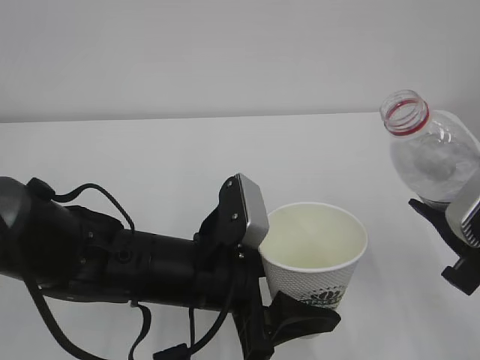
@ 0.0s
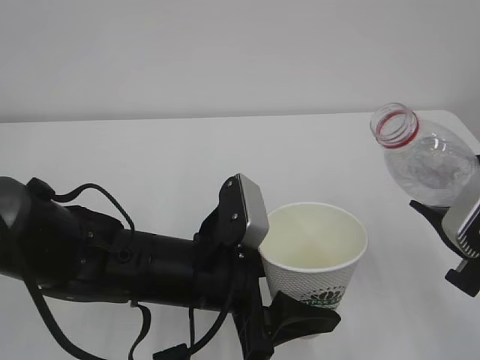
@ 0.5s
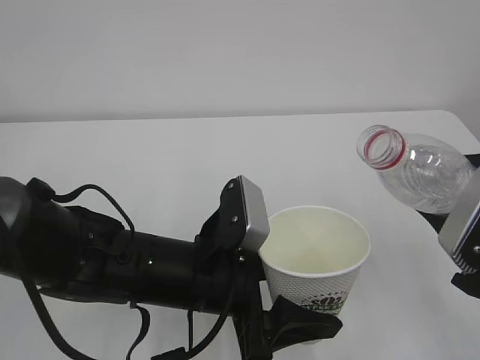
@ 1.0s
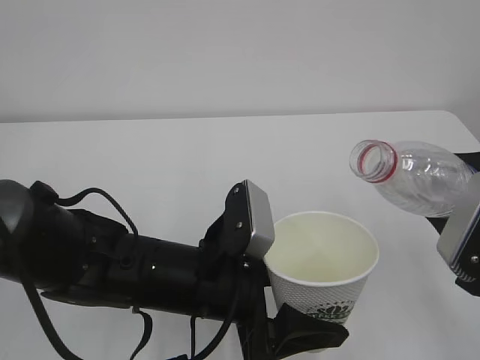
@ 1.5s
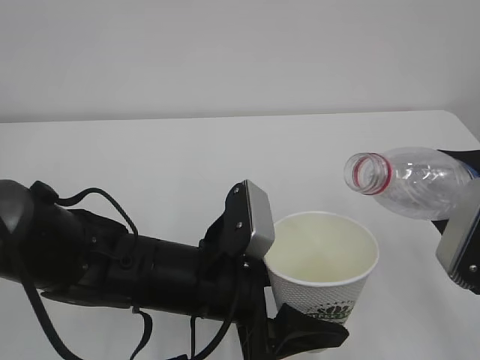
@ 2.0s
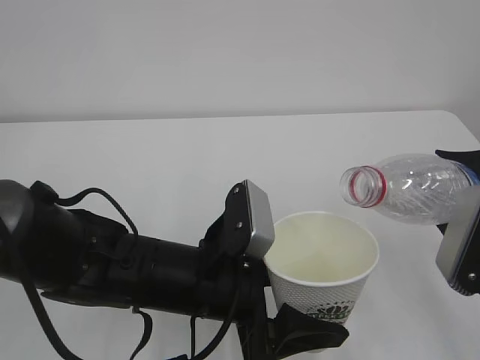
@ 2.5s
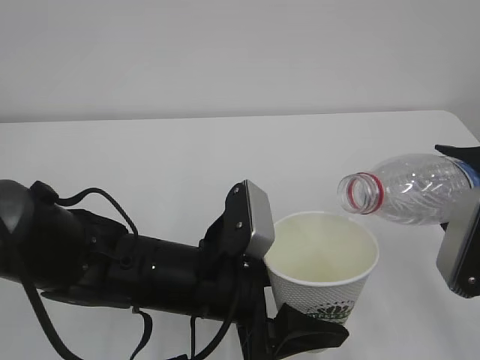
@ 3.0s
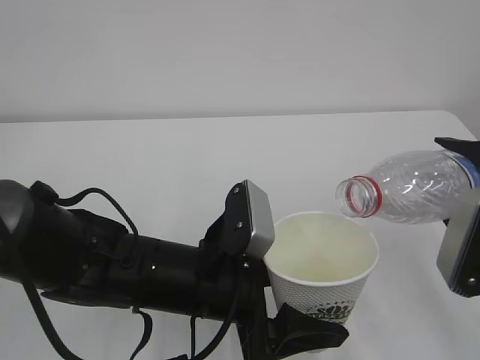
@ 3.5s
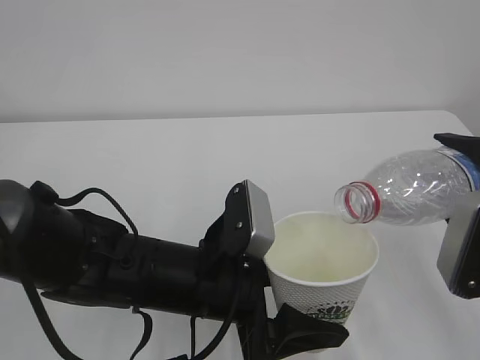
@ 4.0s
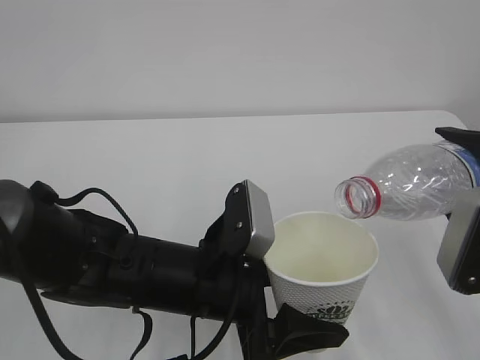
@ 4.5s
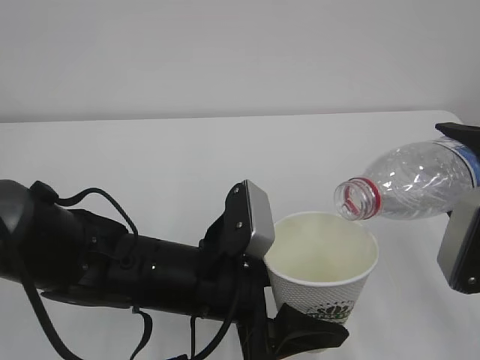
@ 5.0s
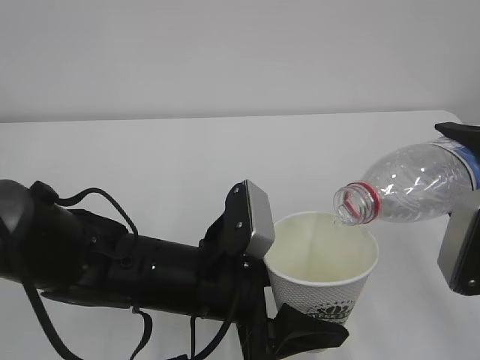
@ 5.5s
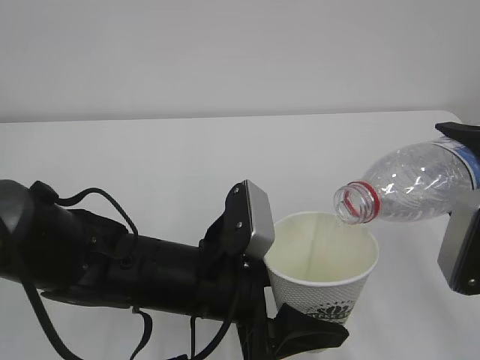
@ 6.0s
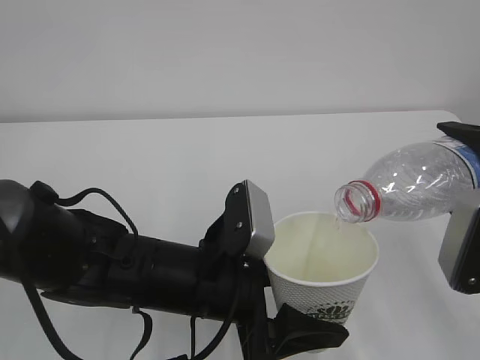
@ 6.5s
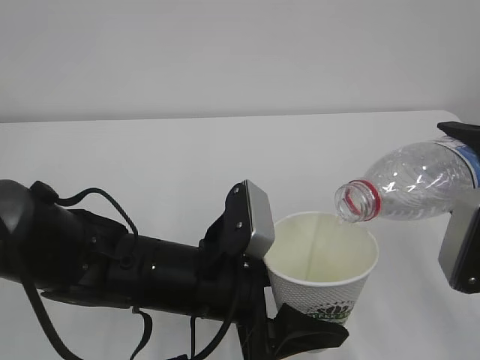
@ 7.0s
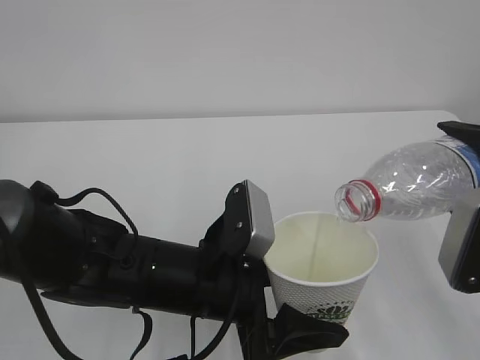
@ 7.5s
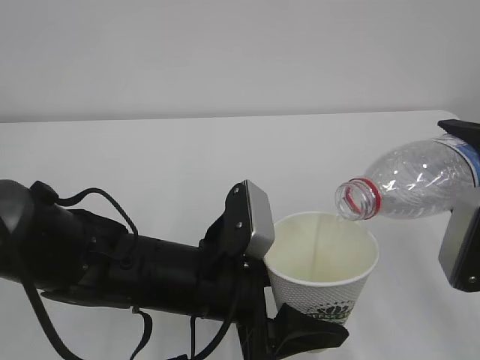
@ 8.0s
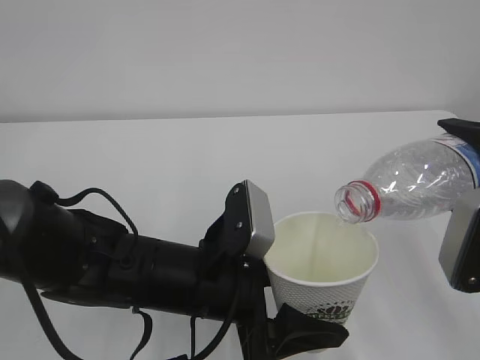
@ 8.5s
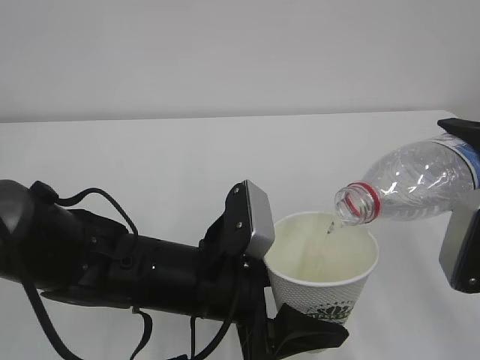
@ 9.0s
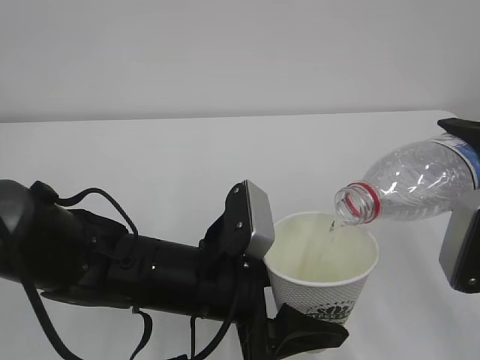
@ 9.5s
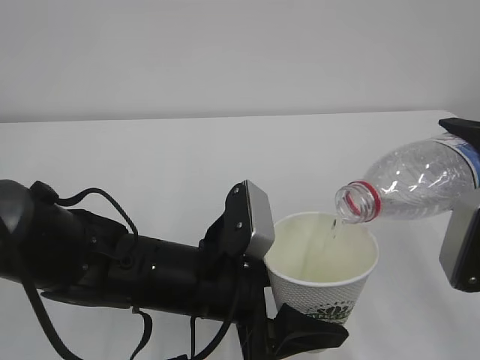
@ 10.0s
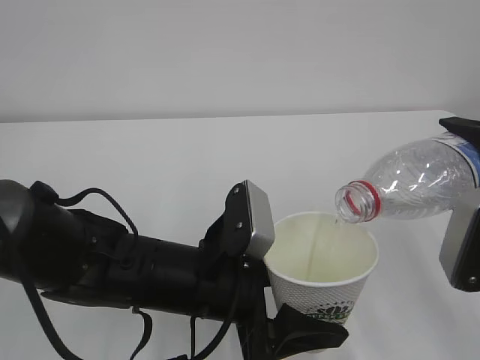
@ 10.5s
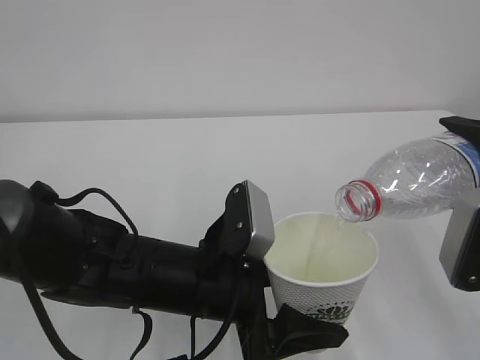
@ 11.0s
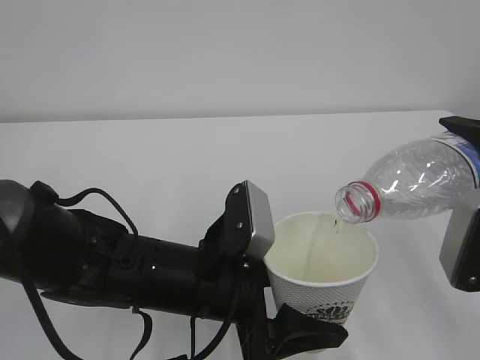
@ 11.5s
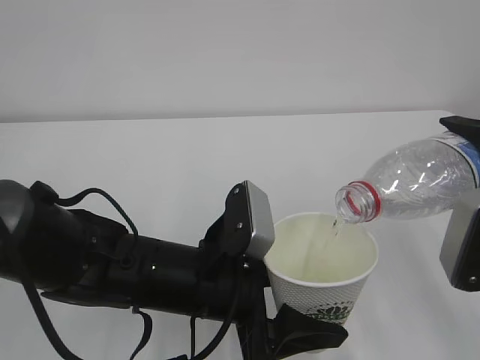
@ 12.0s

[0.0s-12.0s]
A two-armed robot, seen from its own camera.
2.0s to 4.0s: There are only small adjustments of the grippers.
4.0s to 6.0s: Both grippers stay put.
6.0s to 12.0s: Neither gripper changes place.

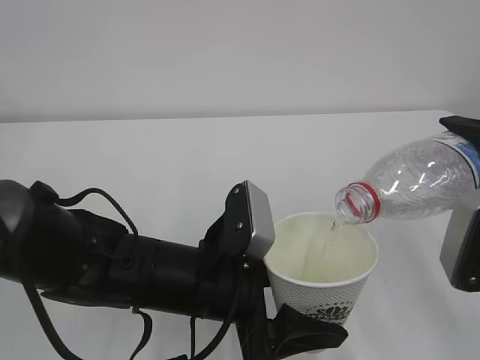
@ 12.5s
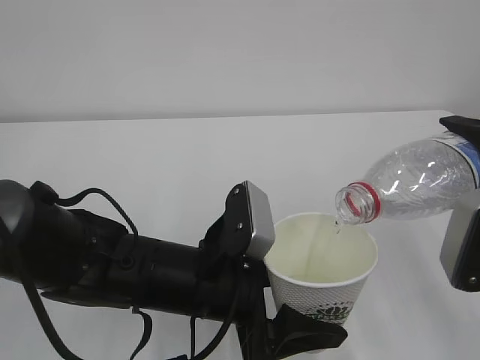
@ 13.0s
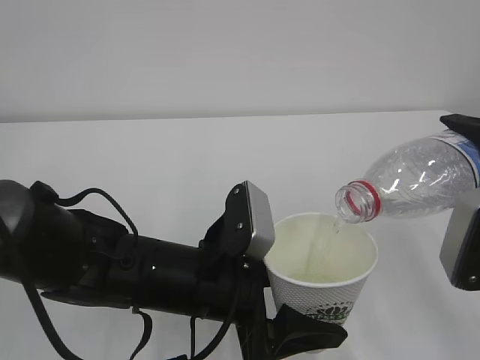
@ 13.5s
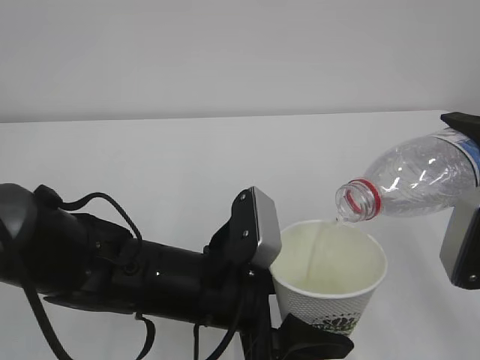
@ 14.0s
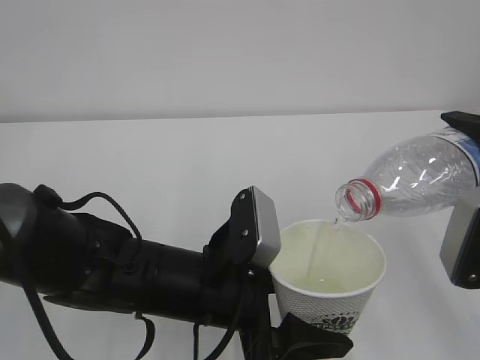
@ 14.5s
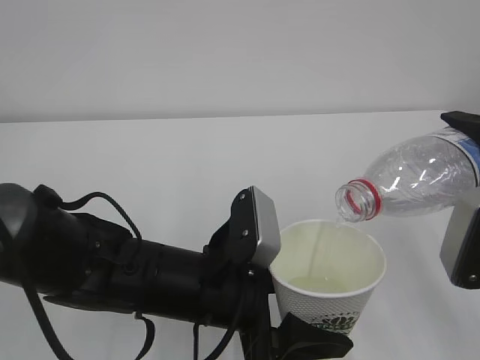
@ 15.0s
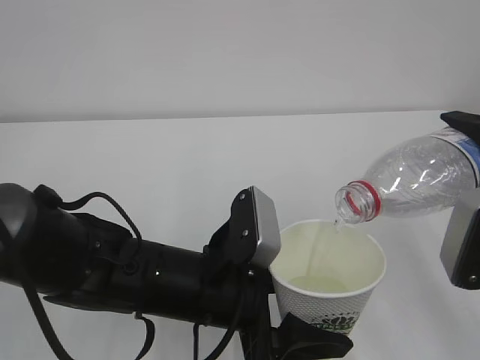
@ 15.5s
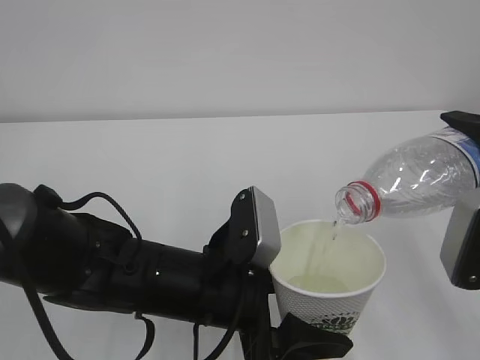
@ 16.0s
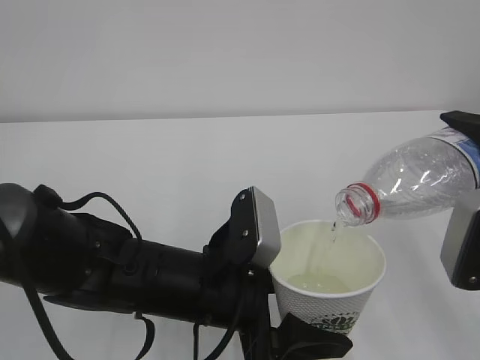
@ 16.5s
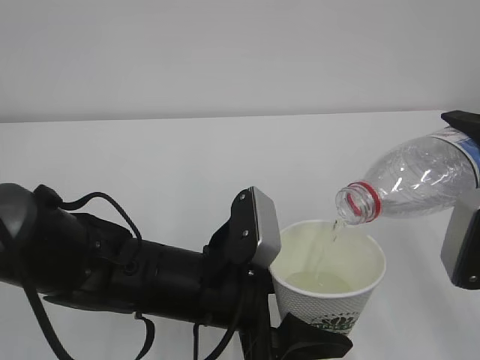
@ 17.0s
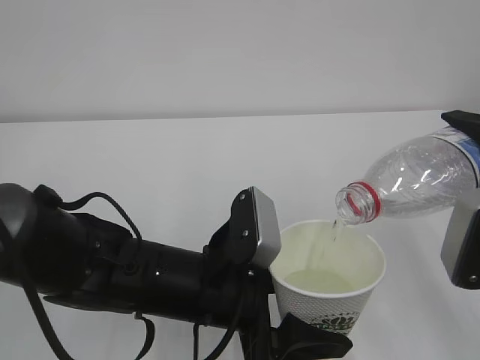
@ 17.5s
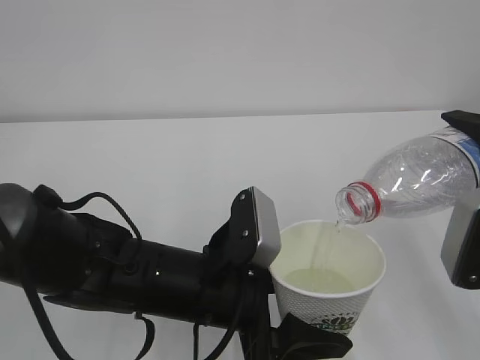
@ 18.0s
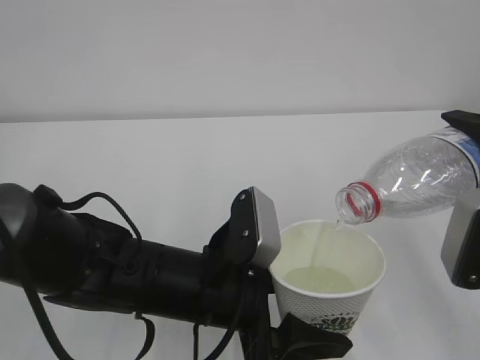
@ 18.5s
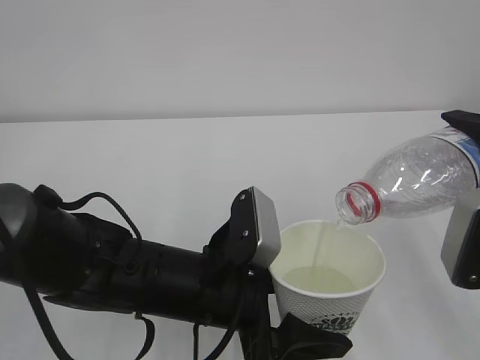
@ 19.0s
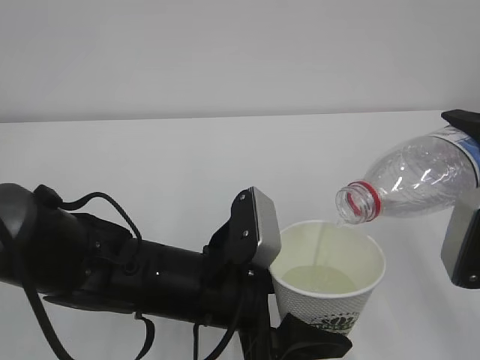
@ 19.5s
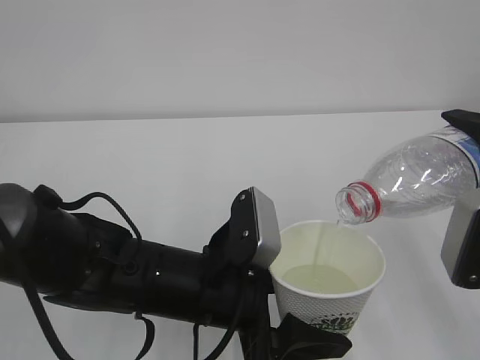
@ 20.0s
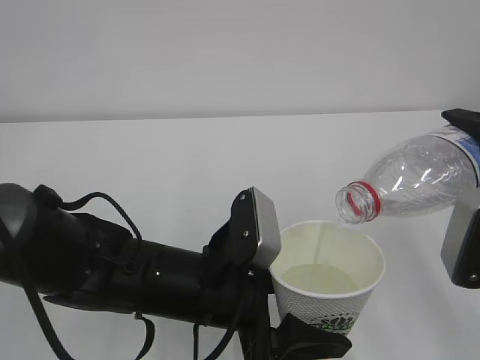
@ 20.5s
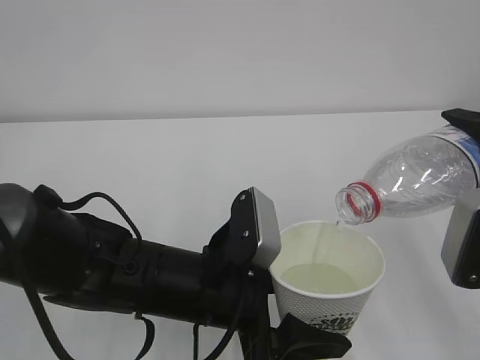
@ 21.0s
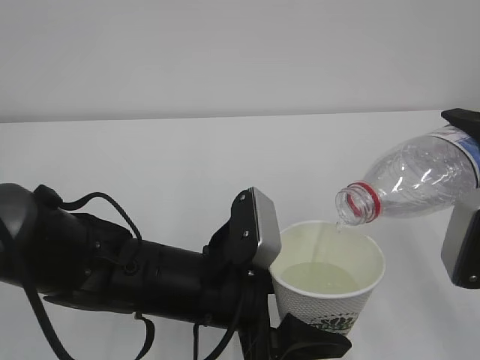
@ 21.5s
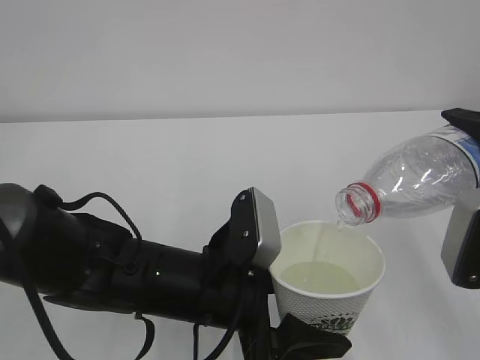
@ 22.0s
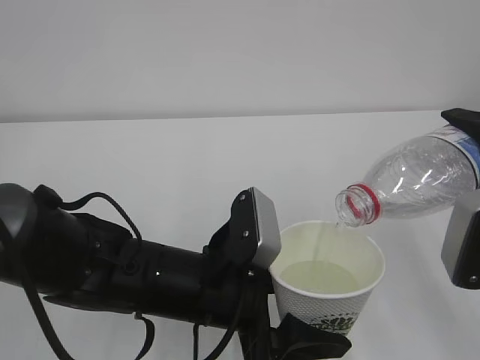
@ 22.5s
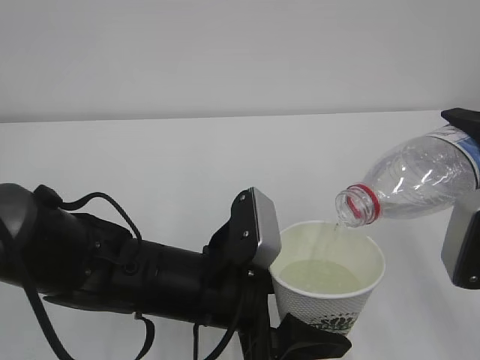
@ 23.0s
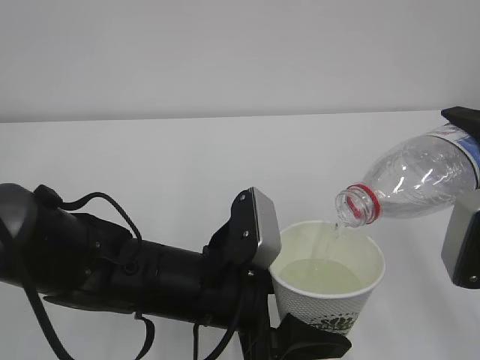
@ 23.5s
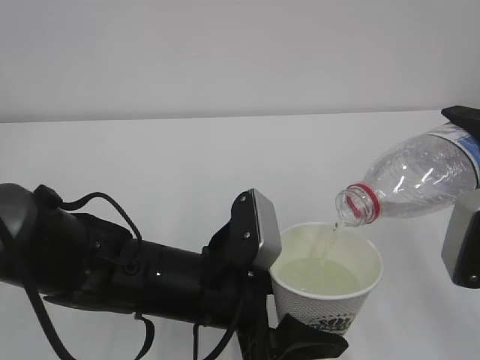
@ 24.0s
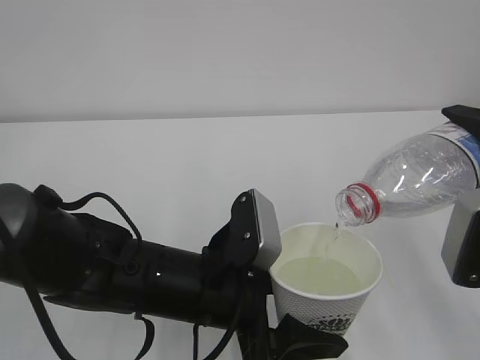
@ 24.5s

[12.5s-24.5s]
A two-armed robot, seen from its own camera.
12.5s to 22.5s: Both grippers stay about where they are.
22.5s to 24.5s: Both grippers stay put.

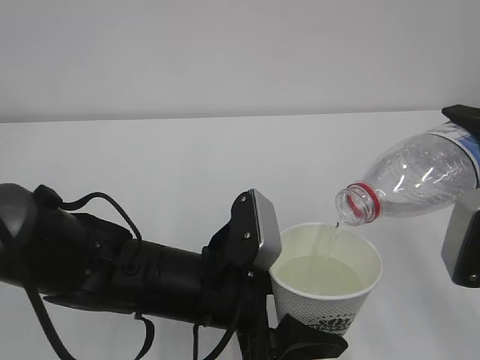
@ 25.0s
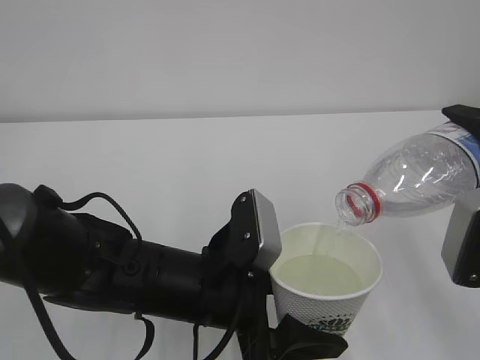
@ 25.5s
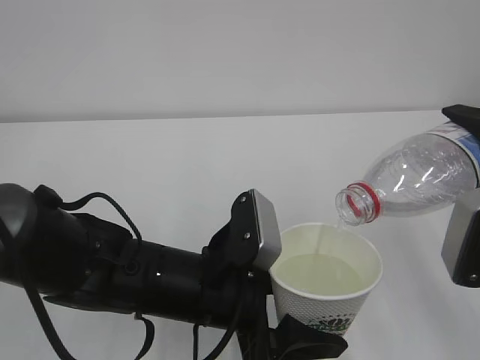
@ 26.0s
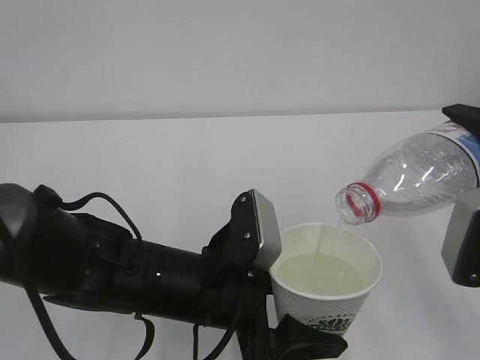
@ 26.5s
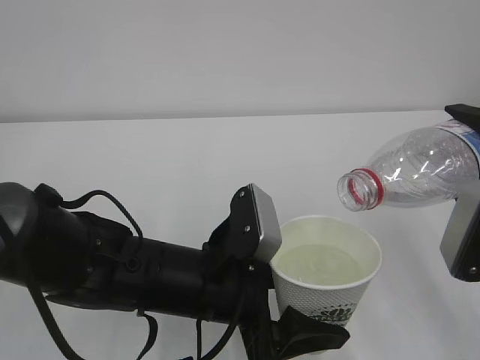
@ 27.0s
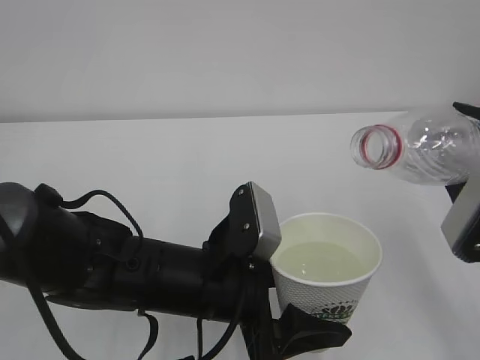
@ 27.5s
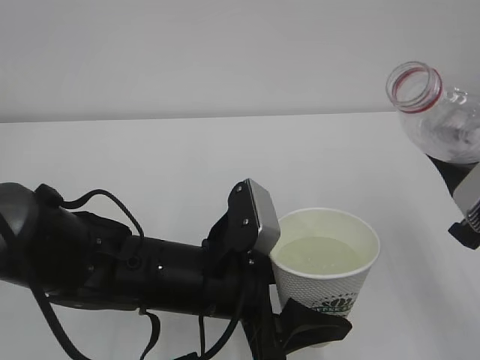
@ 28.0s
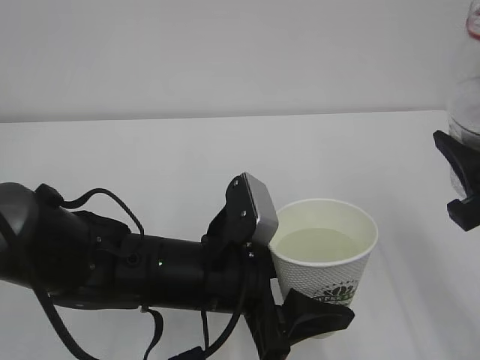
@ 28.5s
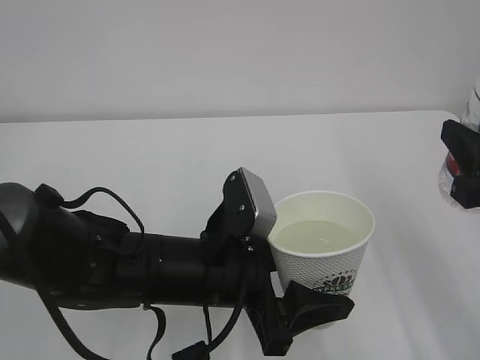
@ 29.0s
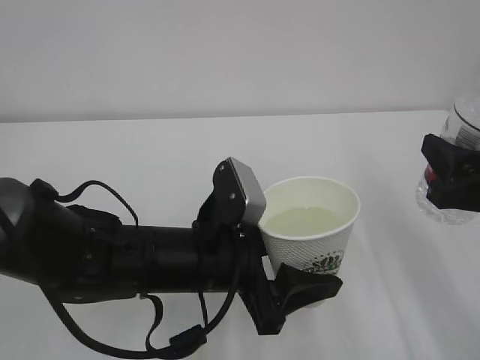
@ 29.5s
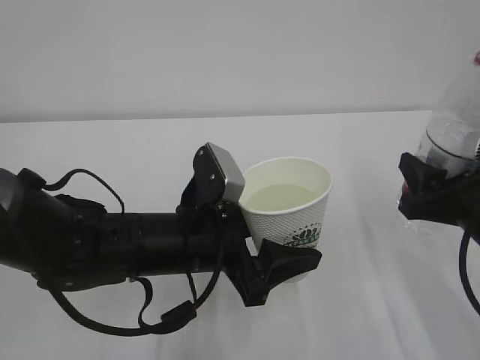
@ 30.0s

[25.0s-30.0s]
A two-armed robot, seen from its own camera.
27.5s to 30.0s: The right gripper shifts roughly 5 cm downward.
